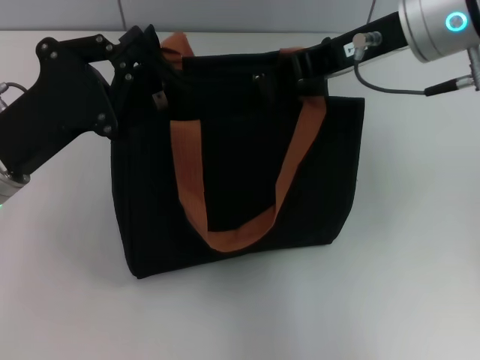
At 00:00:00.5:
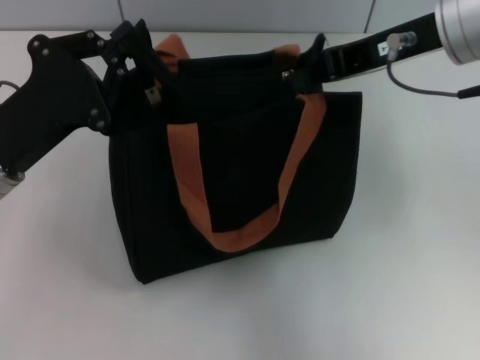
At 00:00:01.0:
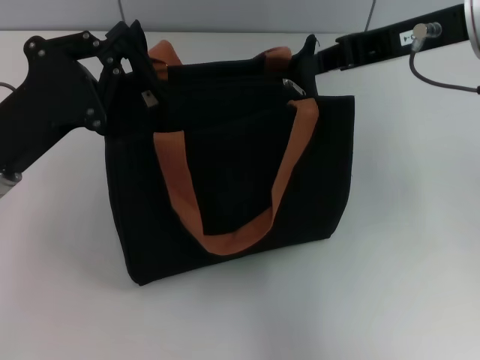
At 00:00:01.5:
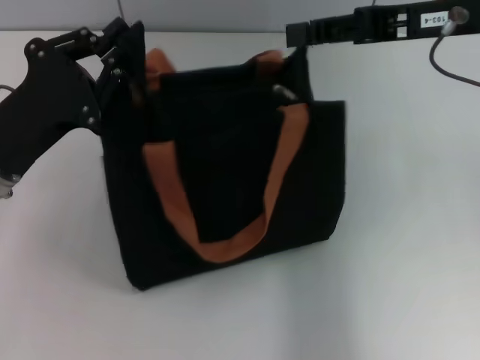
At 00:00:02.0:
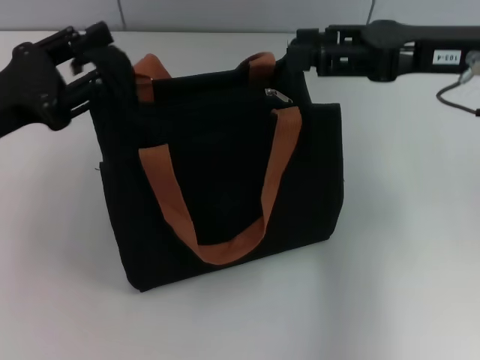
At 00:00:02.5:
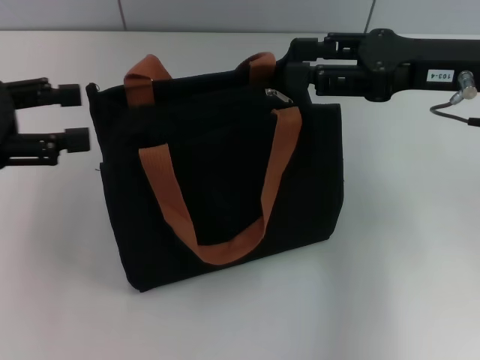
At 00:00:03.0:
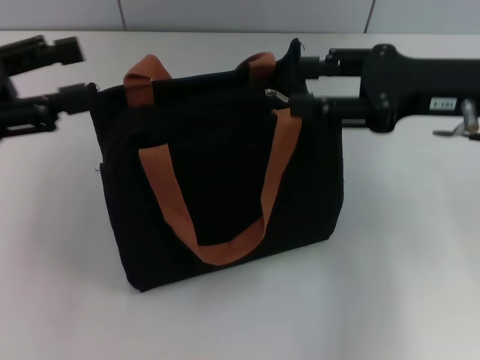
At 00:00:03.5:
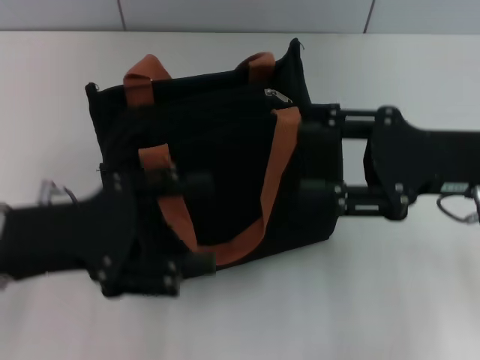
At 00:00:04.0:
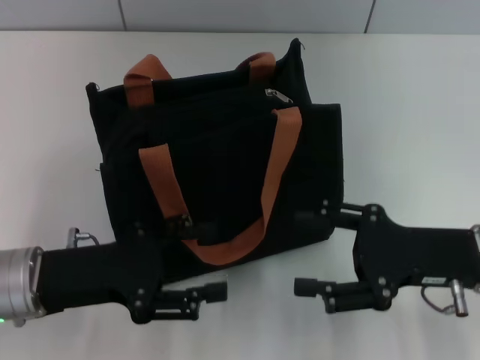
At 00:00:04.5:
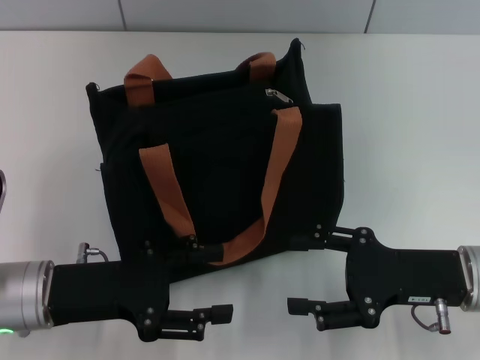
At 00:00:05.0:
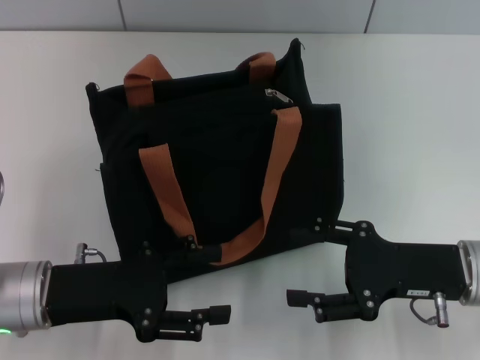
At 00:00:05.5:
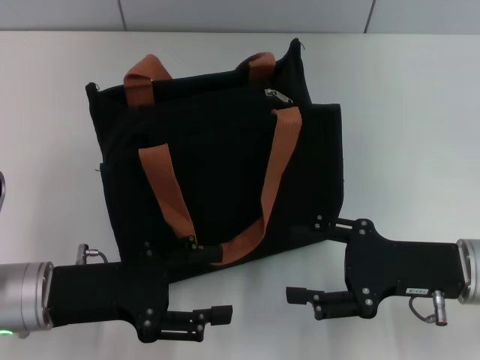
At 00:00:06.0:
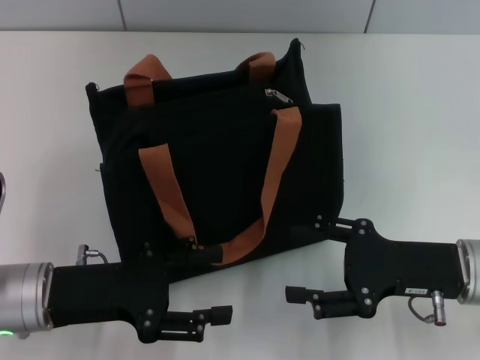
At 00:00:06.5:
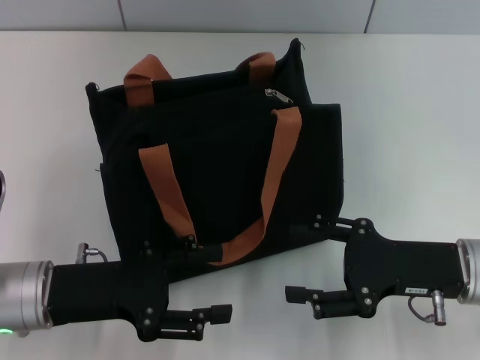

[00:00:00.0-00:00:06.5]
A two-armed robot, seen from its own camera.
Step, 00:00:01.0 to 00:00:02.5: Grab the zipper with your left hand.
00:00:00.0 to 00:00:02.0: The left gripper shifts by about 5 cm, and opens up. Meanwhile the right gripper heads to the right, covering about 10 cm, and opens its fingers.
00:00:02.0 to 00:00:04.5: The right gripper goes some 20 cm downward and backward, while the left gripper heads downward, backward and to the right, covering about 10 cm, and opens its fingers.
00:00:04.5 to 00:00:06.5: Both grippers stay about where they are.
